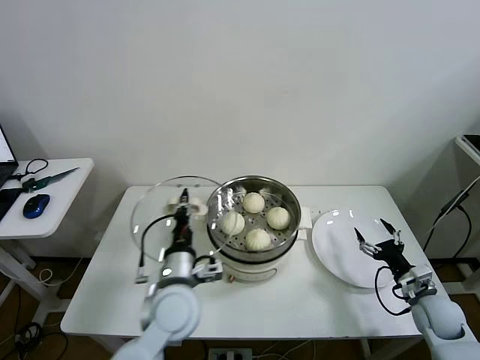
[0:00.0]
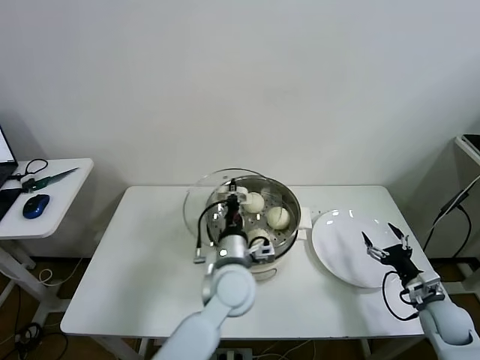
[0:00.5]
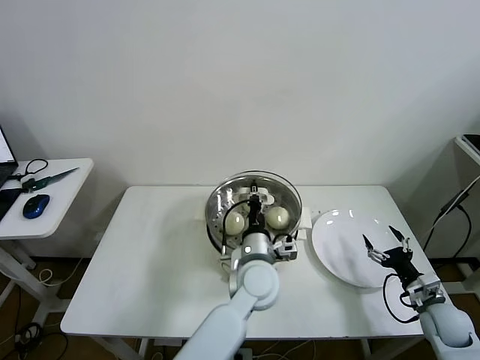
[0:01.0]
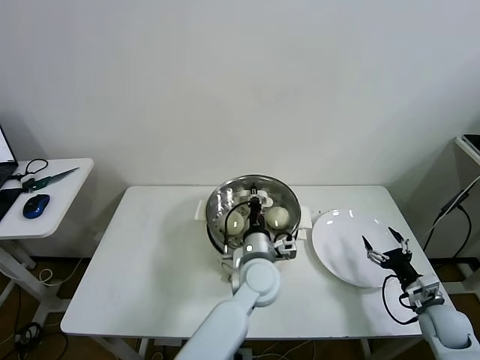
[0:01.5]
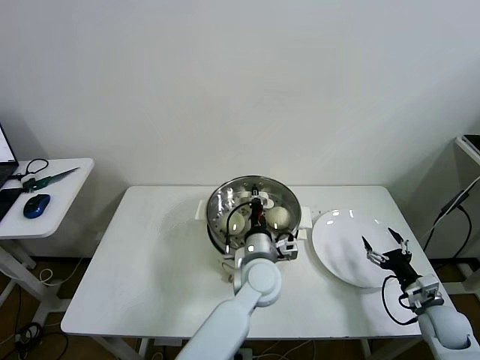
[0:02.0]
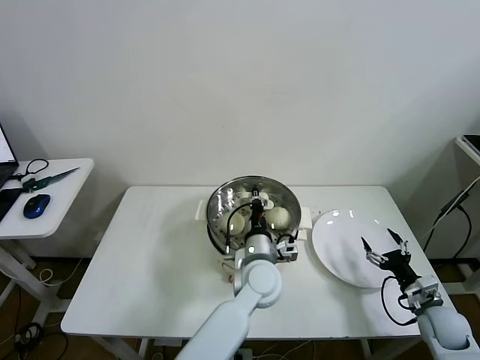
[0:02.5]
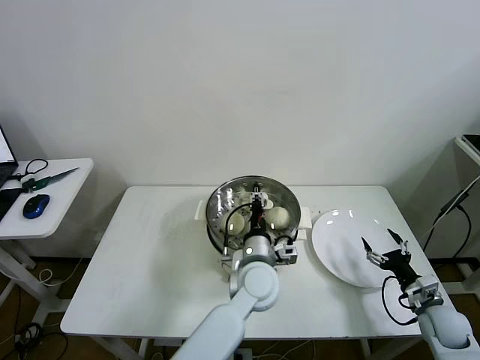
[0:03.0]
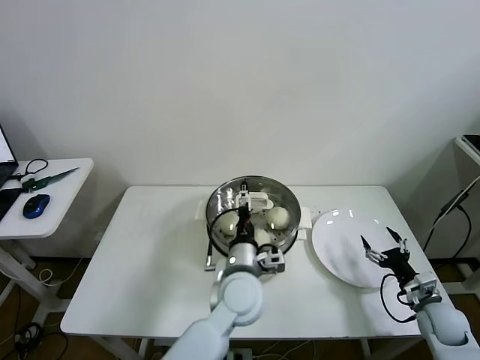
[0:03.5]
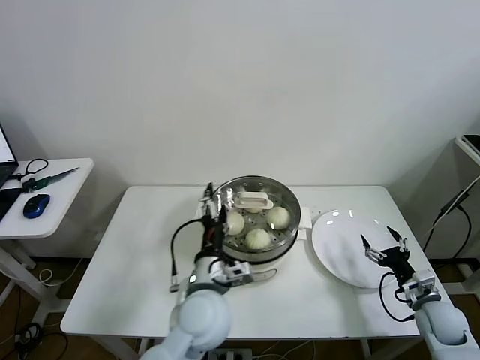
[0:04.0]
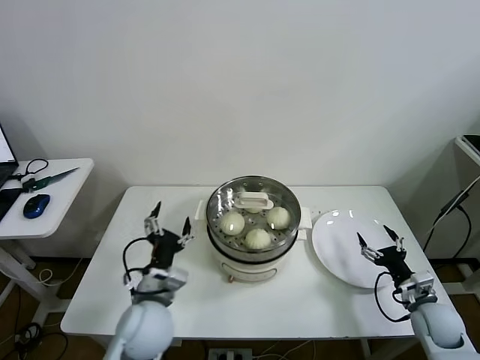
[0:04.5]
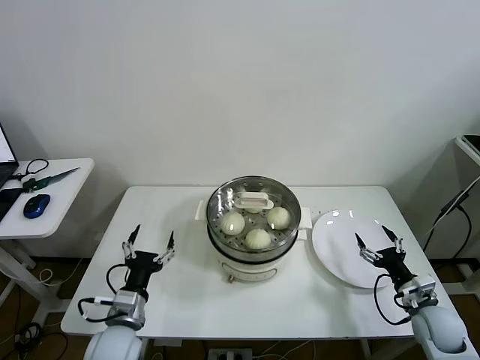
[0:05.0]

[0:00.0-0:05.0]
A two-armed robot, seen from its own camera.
Task of the whole recording: take steamed baozi put them in steamer then cover it.
Step, 0:00.0 to 0:02.5: Place the pot lid on the steamer with left gripper.
0:00.0 to 0:02.5: The left gripper heads to the right and forward, covering some 20 cm.
0:02.5 to 0:05.0: The left gripper shifts some 30 cm to the left and backward, and opens.
